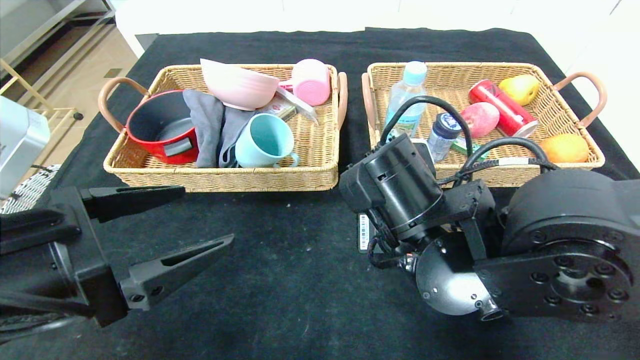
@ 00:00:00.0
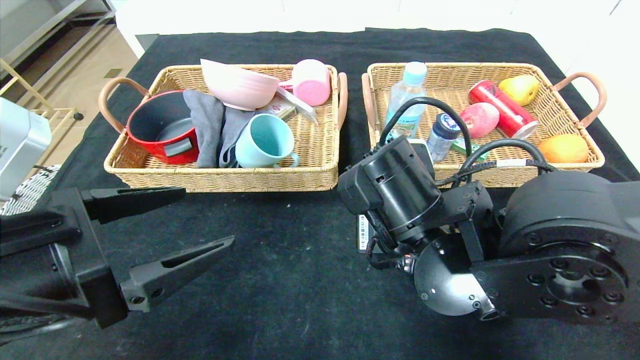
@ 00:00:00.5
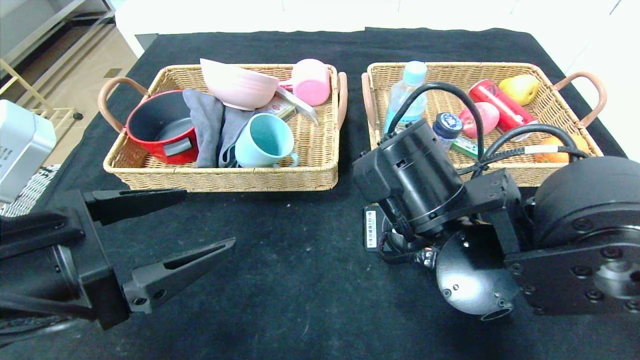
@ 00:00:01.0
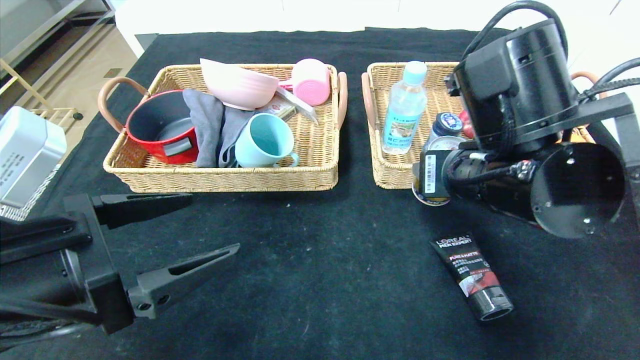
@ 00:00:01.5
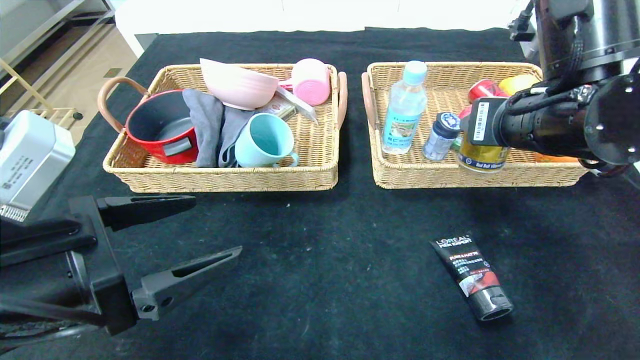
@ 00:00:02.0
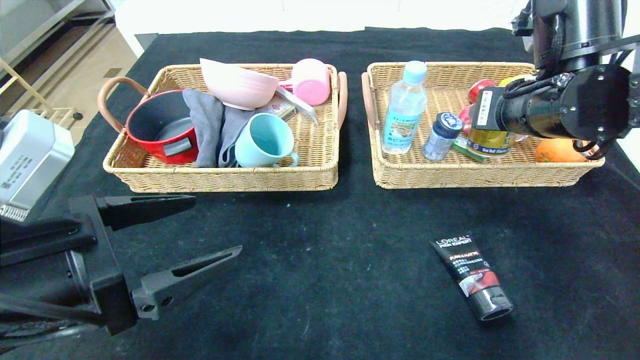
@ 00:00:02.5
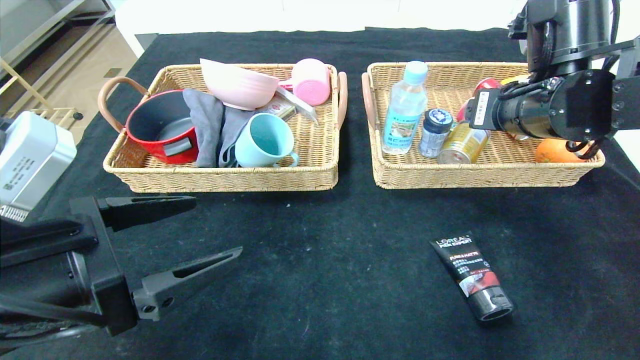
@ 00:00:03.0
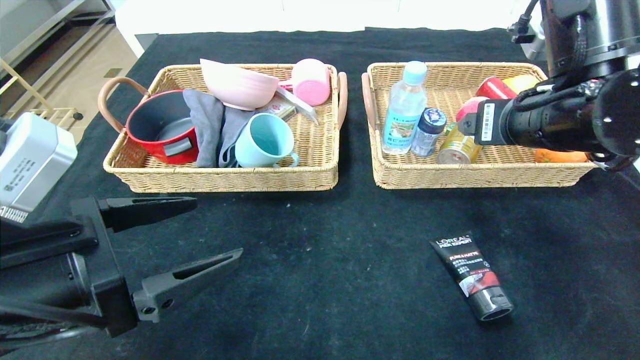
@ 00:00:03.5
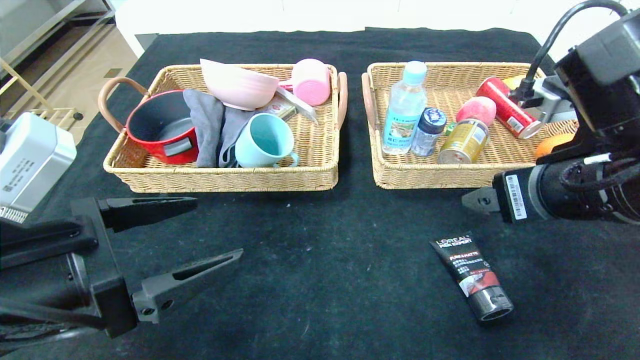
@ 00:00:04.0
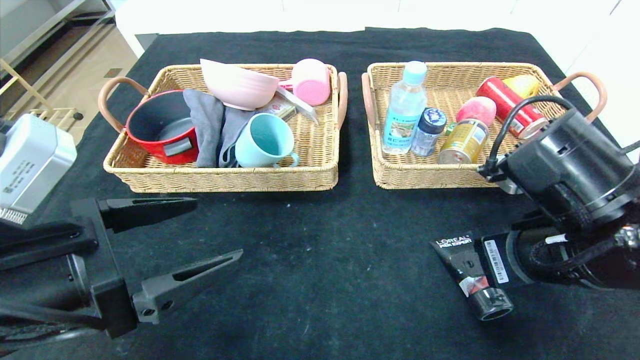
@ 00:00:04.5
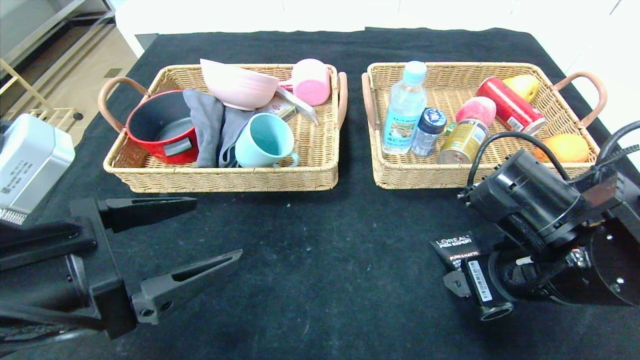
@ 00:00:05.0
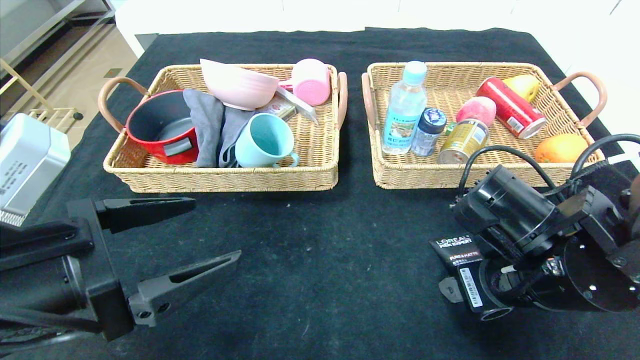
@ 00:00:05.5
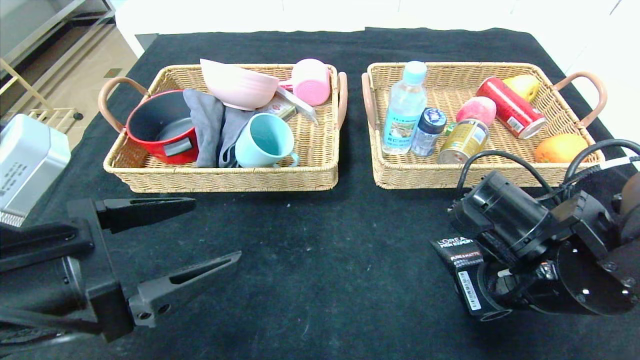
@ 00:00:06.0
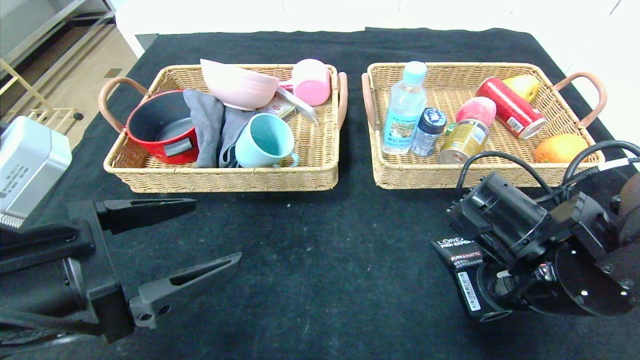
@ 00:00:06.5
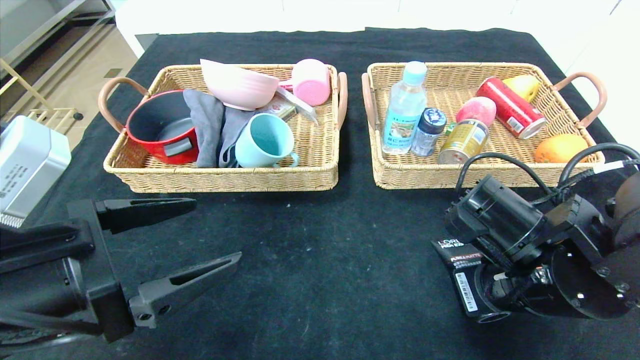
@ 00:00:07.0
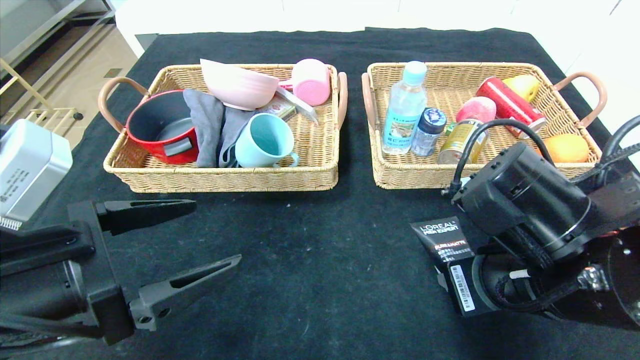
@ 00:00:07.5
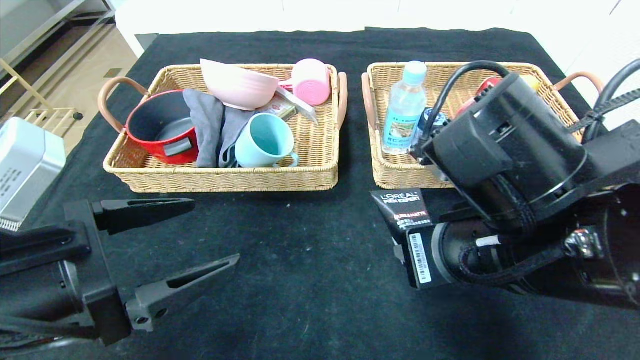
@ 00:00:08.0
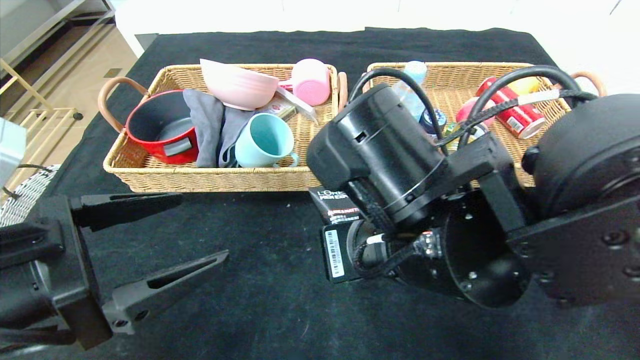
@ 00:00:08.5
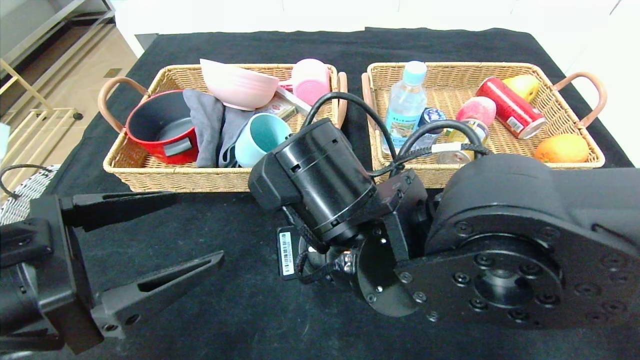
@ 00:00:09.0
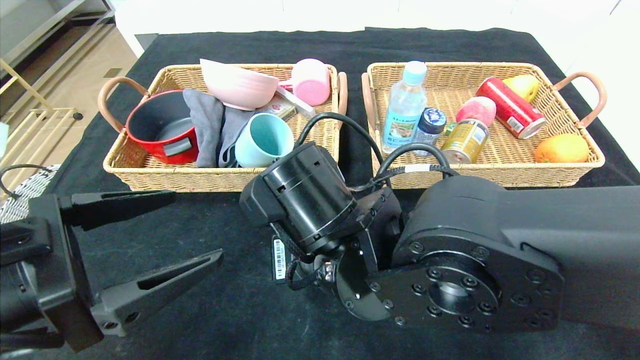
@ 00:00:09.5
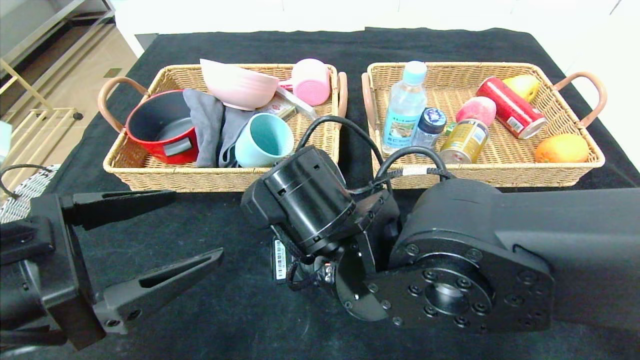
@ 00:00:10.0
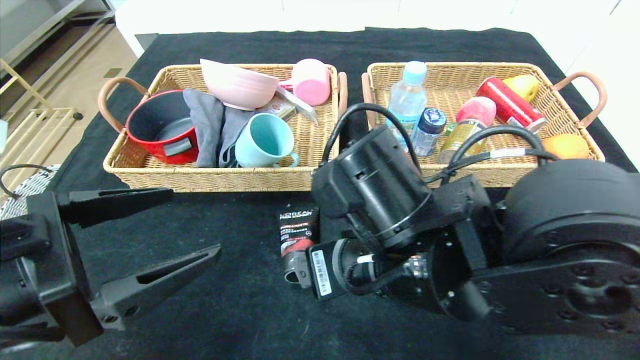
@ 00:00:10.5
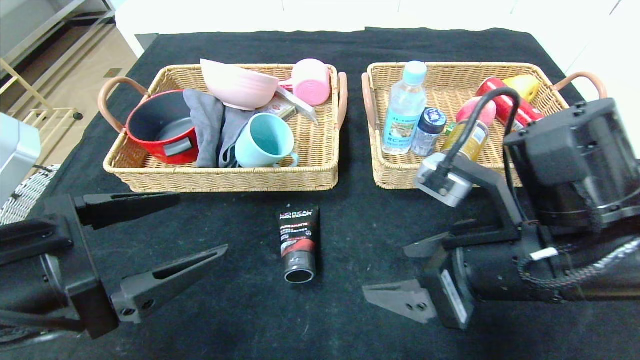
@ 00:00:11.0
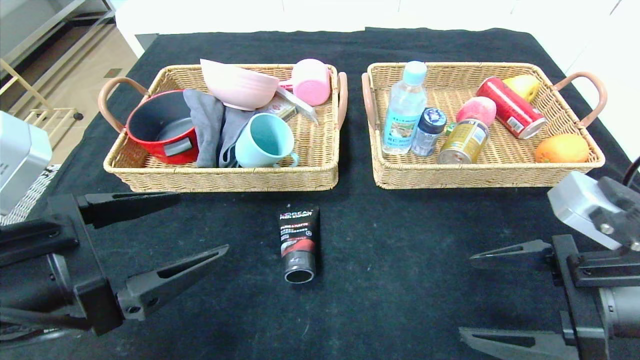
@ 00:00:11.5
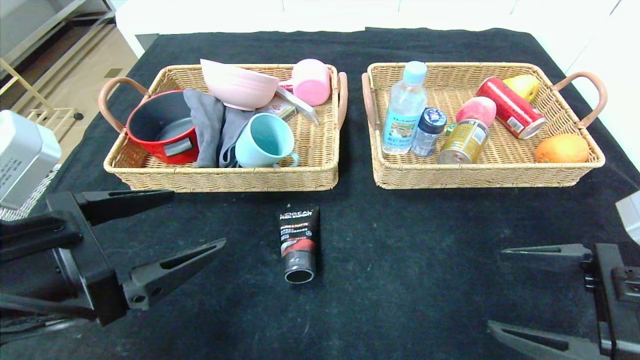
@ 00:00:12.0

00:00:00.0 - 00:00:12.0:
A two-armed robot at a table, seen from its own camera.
Step, 00:00:00.0 - 00:00:02.5: Grasp the Red Bull and put it in the right basket.
Step, 00:00:03.0 - 00:00:10.0: Place the soft cleanser in the center of the table.
00:00:00.0 - 00:00:02.0: The right gripper is displaced to the right and upward by some 15 cm.
00:00:02.0 - 00:00:04.0: The right gripper goes roughly 5 cm backward, and opens up.
00:00:04.0 - 00:00:06.0: The right gripper shifts approximately 10 cm downward, and closes.
00:00:06.0 - 00:00:08.0: The right gripper shifts roughly 10 cm upward and to the left.
00:00:08.0 - 00:00:10.0: The right gripper shifts roughly 15 cm to the left and downward, and opens up.
00:00:10.0 - 00:00:12.0: The right gripper travels to the right by some 30 cm, and opens its fingers.

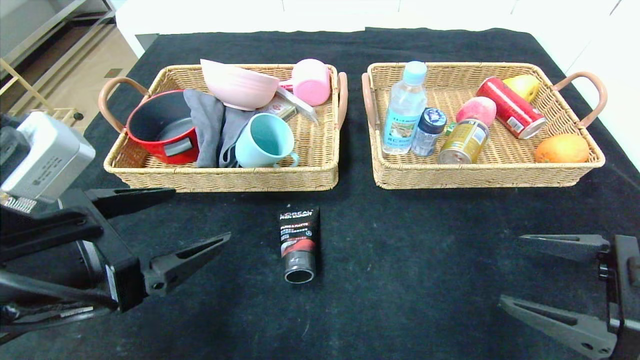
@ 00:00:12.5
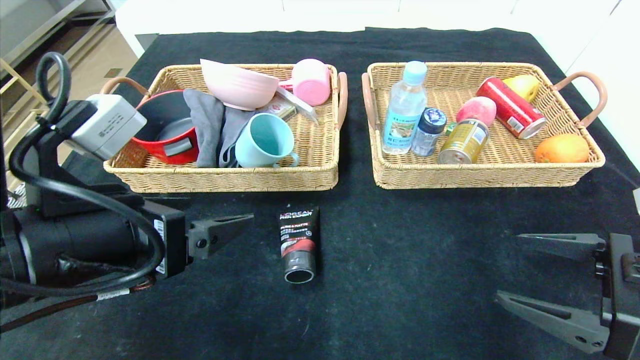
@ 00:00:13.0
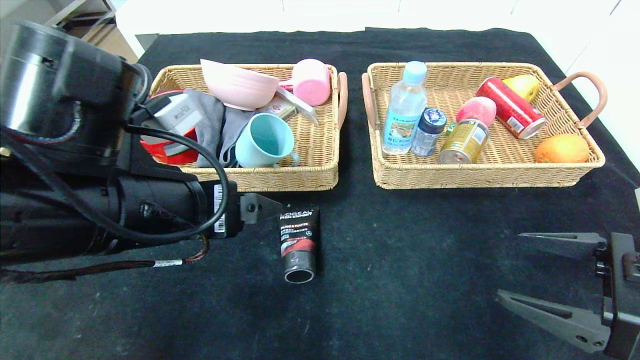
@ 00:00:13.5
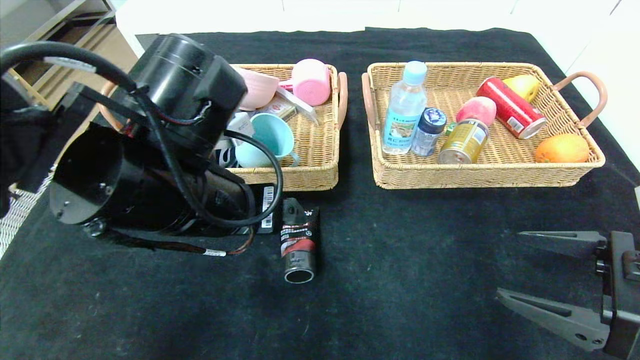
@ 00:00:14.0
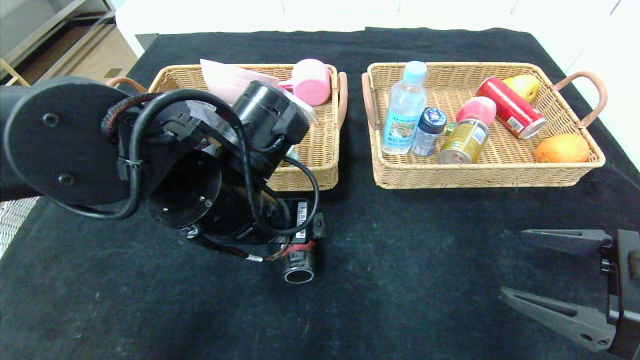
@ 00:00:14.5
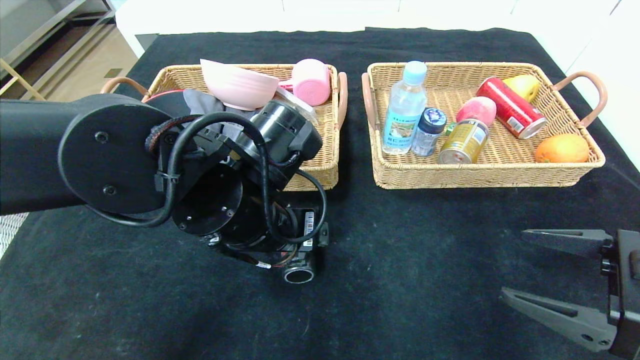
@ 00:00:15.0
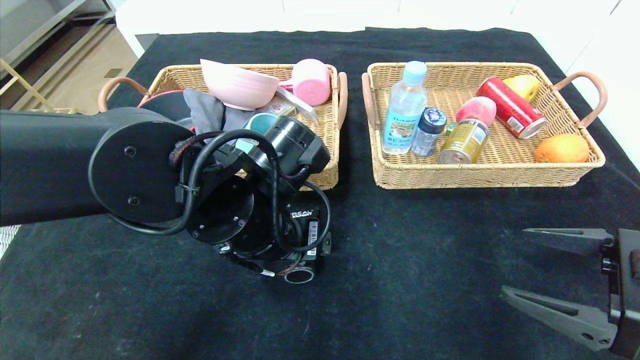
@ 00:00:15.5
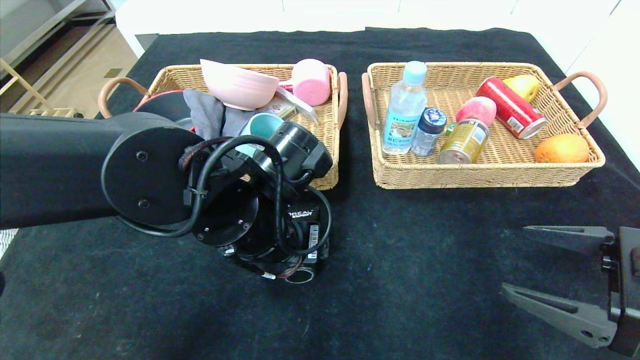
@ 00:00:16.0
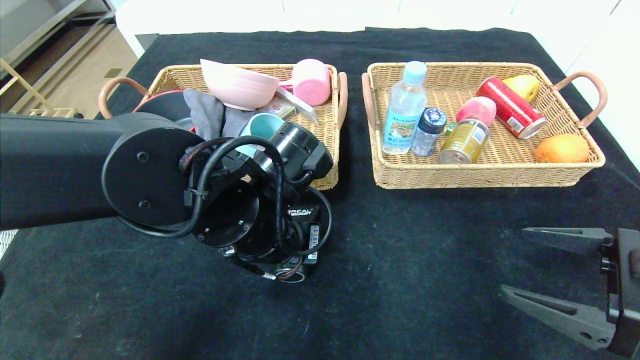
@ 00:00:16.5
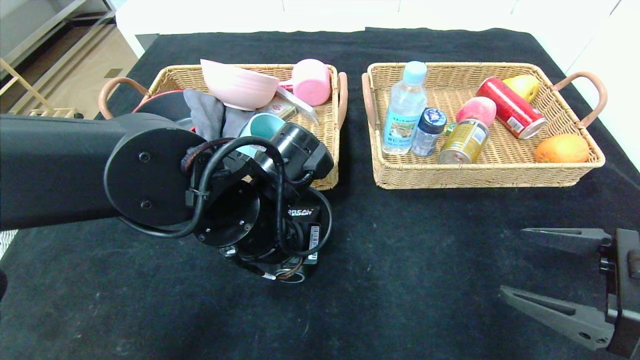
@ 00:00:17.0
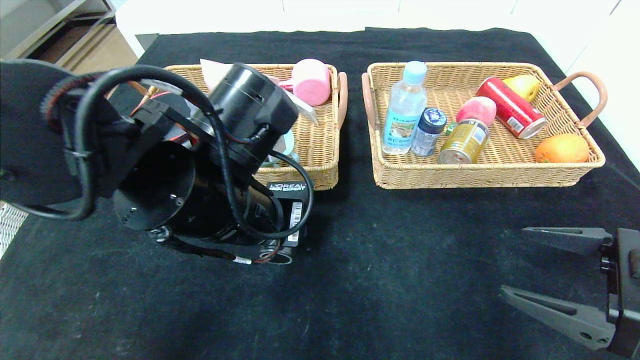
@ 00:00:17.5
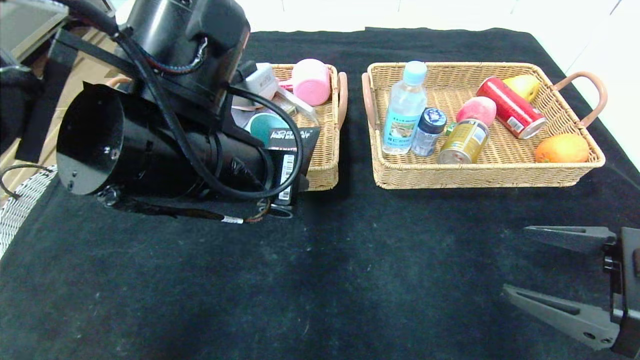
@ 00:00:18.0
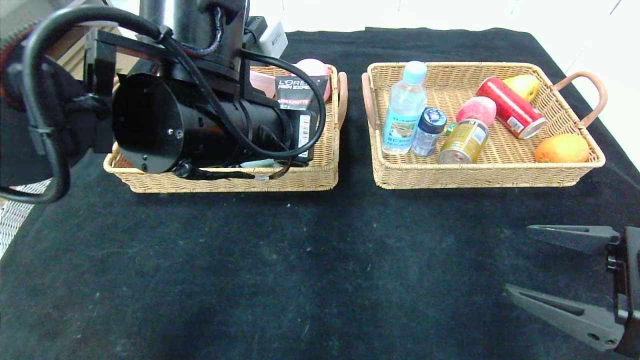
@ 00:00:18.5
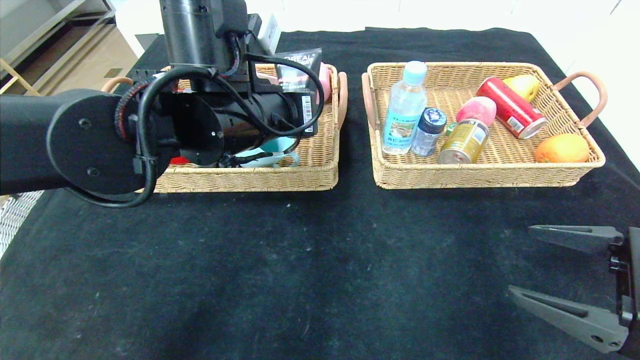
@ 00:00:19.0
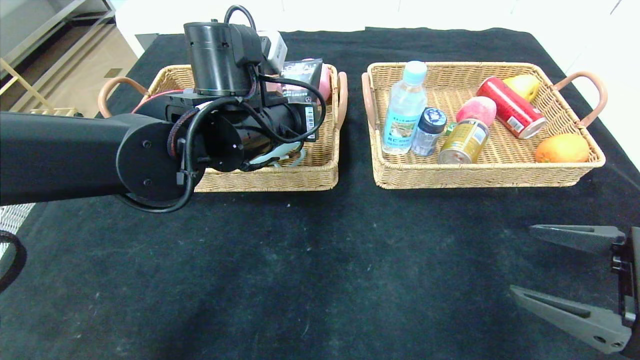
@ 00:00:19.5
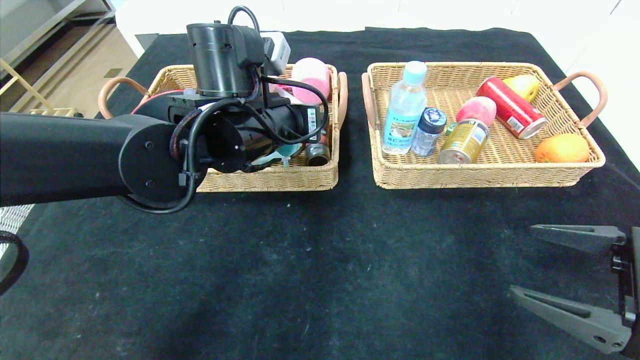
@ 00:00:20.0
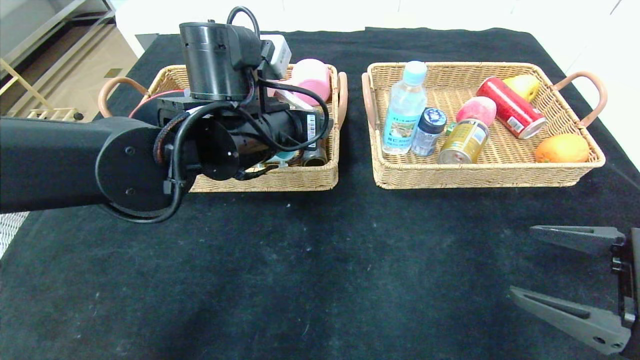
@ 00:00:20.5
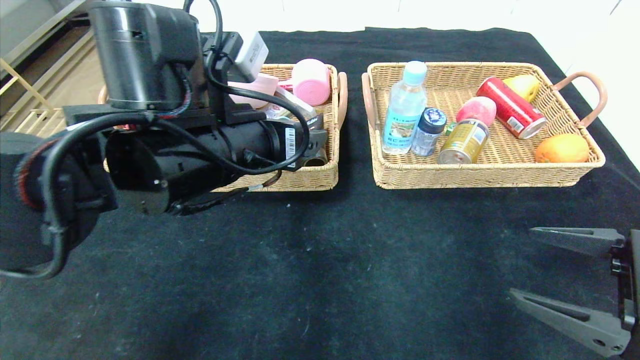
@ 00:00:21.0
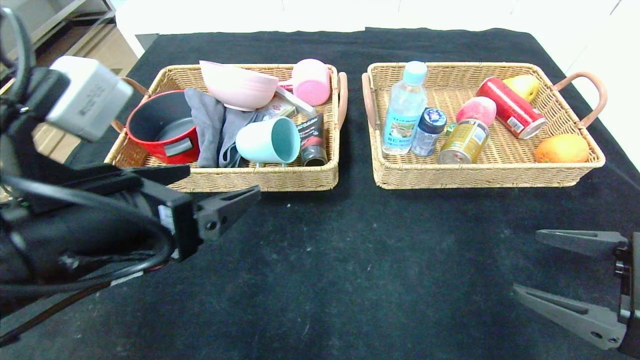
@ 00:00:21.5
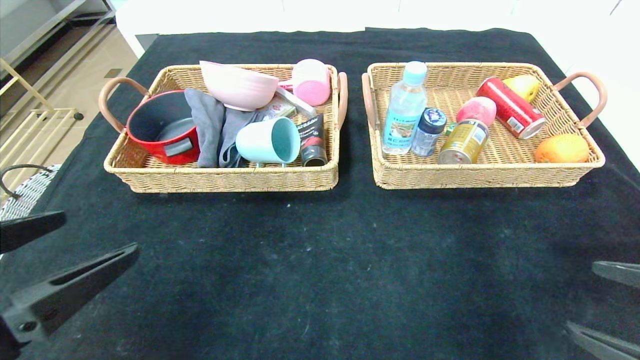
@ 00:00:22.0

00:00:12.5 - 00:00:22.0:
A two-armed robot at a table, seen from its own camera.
Step, 00:00:12.5 - 00:00:20.0: Grasp the soft cleanser and put it in the left basket.
00:00:12.5 - 00:00:14.5: The left gripper shifts approximately 15 cm to the right and forward.
00:00:14.5 - 00:00:16.5: The left gripper closes.
00:00:16.5 - 00:00:18.0: The left gripper is displaced upward by approximately 10 cm.
00:00:18.0 - 00:00:20.0: The left gripper moves forward, roughly 10 cm.
00:00:20.0 - 00:00:22.0: The left gripper heads backward and to the left, covering some 30 cm, while the right gripper ends up roughly 5 cm from where it was.
